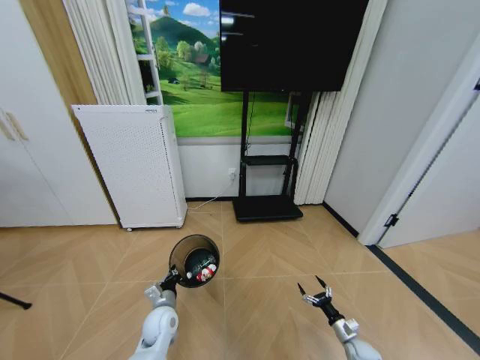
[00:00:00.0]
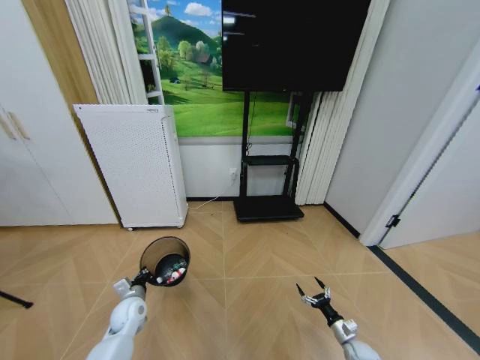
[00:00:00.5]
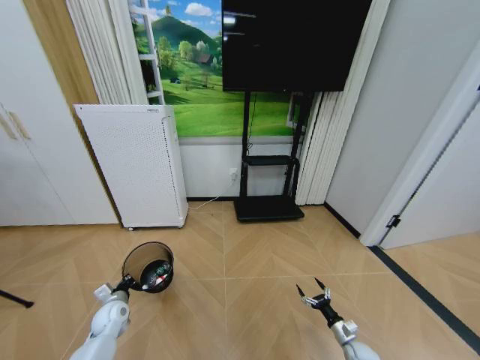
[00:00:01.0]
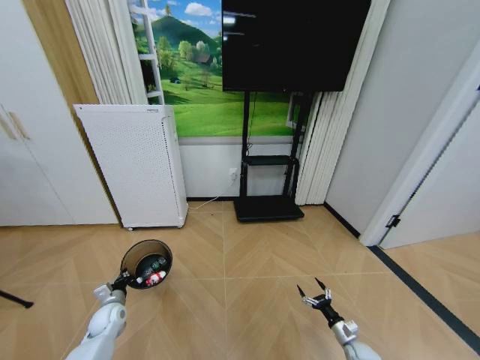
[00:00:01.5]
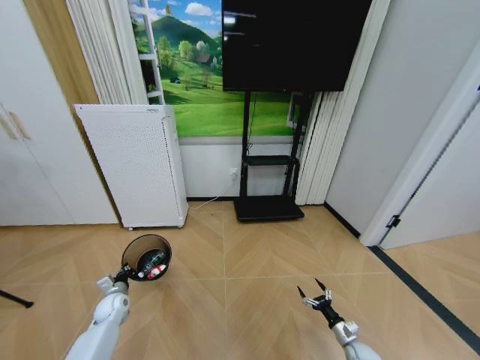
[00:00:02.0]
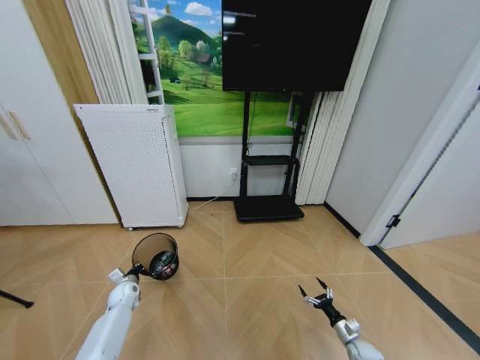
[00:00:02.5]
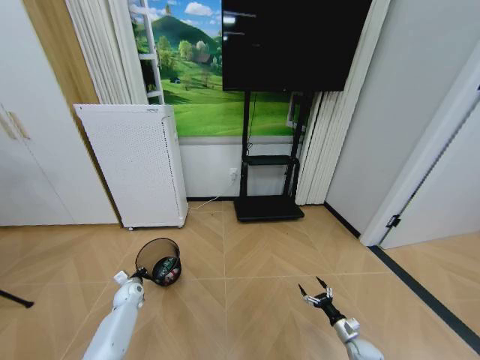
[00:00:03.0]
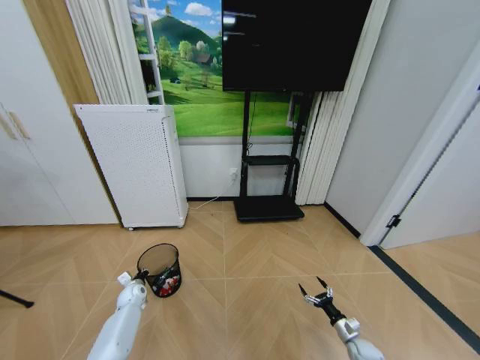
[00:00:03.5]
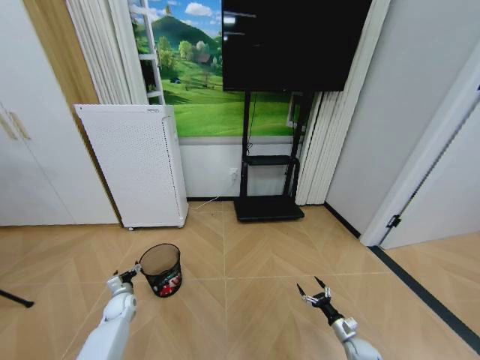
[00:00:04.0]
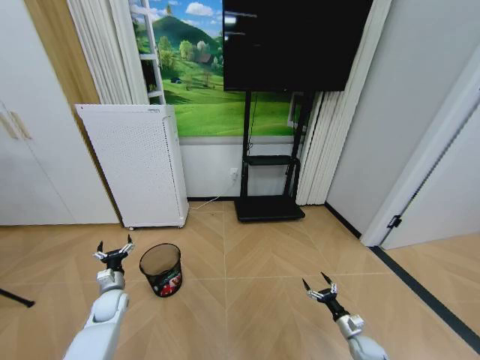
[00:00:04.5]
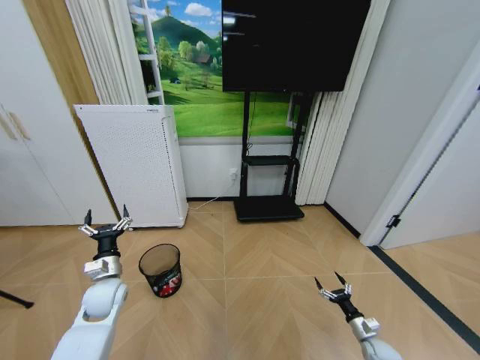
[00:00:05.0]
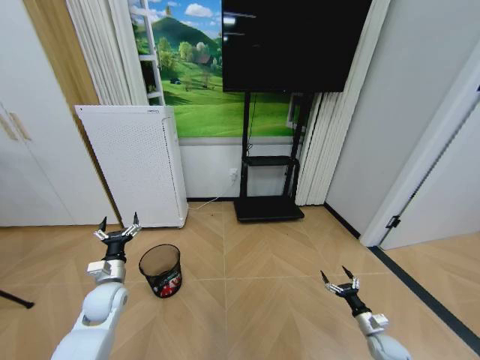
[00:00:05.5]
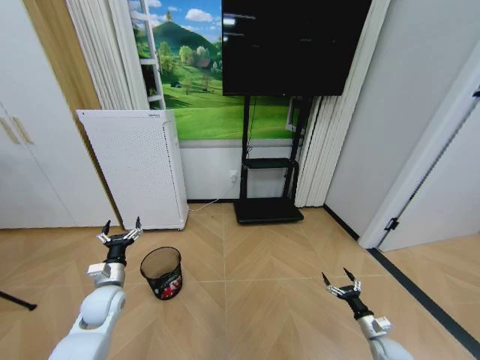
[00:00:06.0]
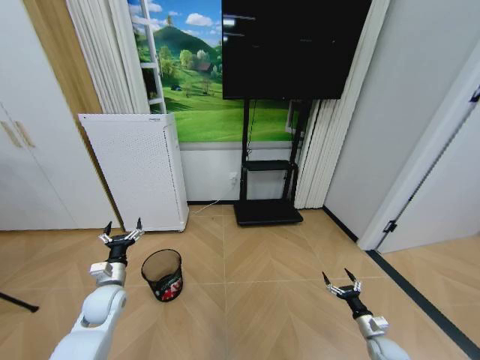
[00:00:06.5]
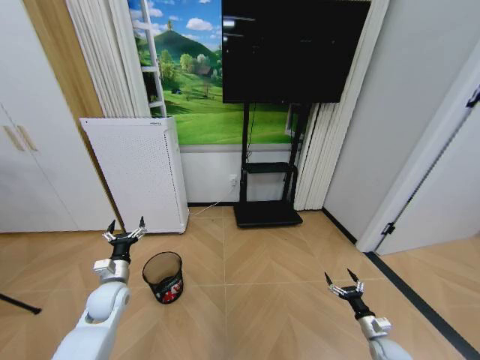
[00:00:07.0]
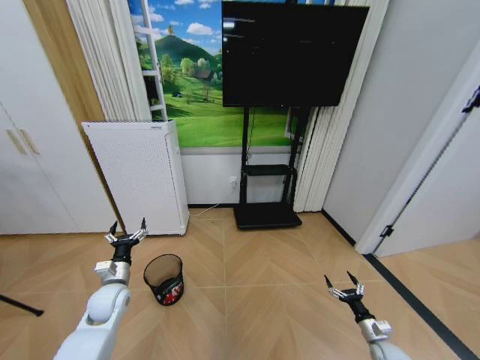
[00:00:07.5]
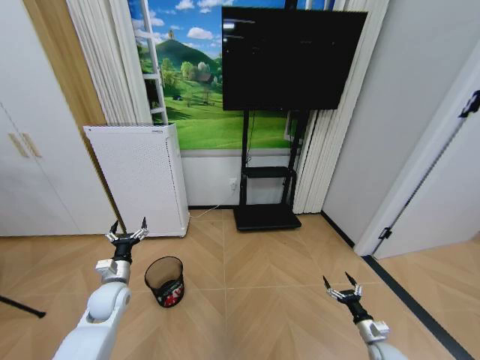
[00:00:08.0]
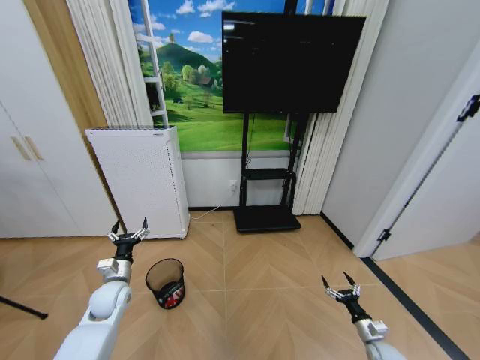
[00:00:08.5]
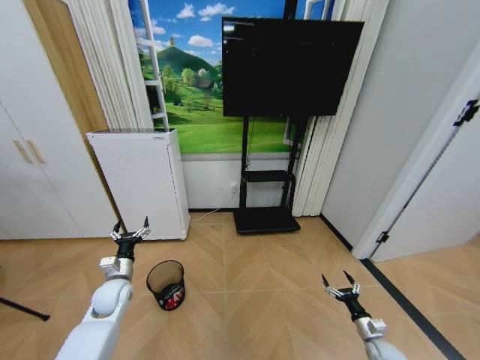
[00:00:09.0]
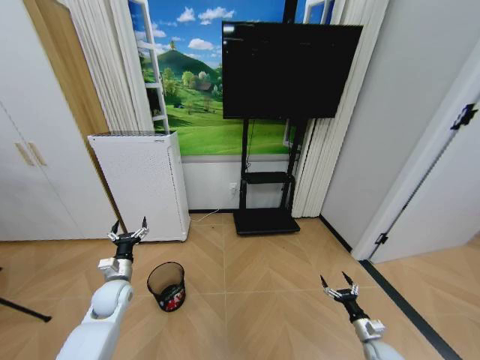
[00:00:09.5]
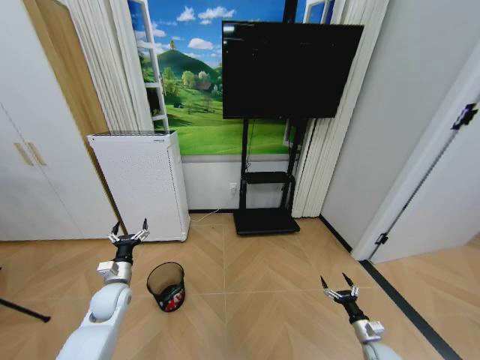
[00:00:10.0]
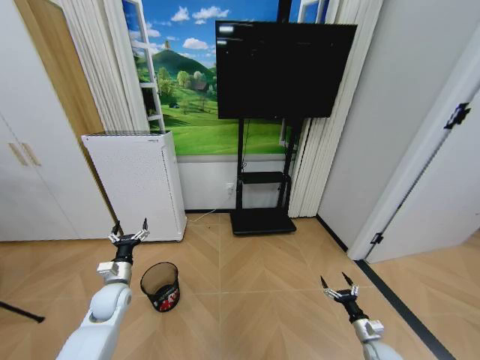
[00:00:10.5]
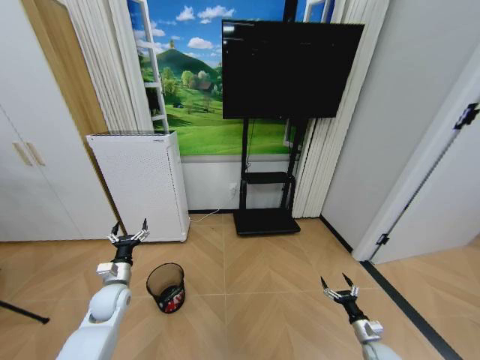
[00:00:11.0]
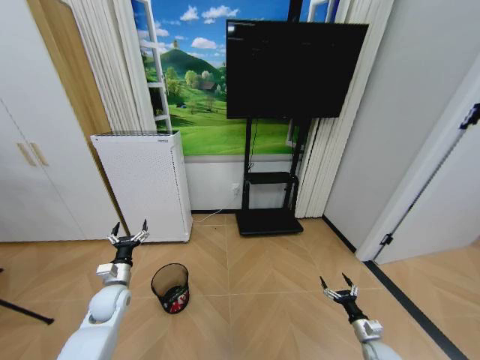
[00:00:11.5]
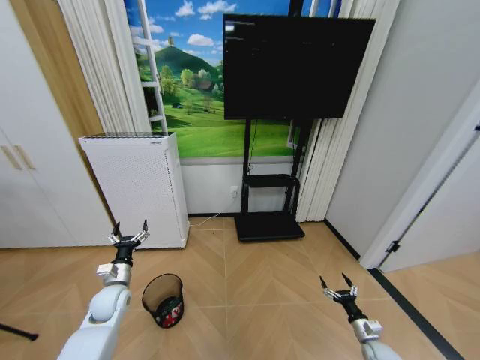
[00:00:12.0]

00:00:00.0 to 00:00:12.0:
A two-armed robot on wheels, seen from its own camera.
Task of the whole recording: Pick up the trash bin and place the garbage on the floor into it.
00:00:00.0 to 00:00:02.0: The left gripper travels to the left by roughly 20 cm.
00:00:02.0 to 00:00:04.0: The left gripper opens.
00:00:04.0 to 00:00:06.0: The right gripper goes about 10 cm upward and to the right. The left gripper moves upward, roughly 15 cm.
00:00:06.0 to 00:00:08.0: The grippers make only small movements.
00:00:08.0 to 00:00:10.0: Both grippers stay put.
00:00:10.0 to 00:00:12.0: Both grippers stay put.

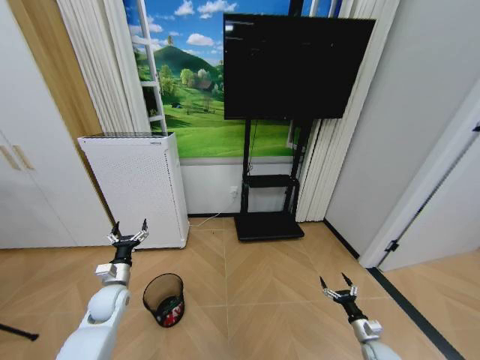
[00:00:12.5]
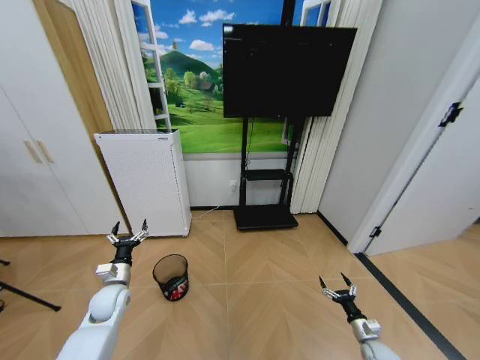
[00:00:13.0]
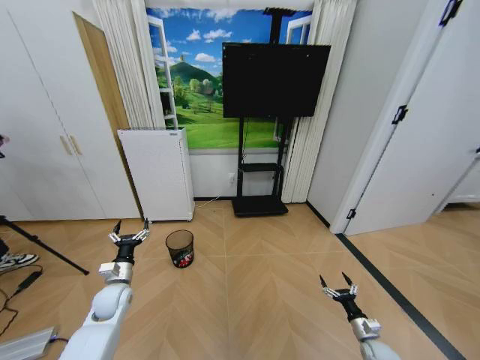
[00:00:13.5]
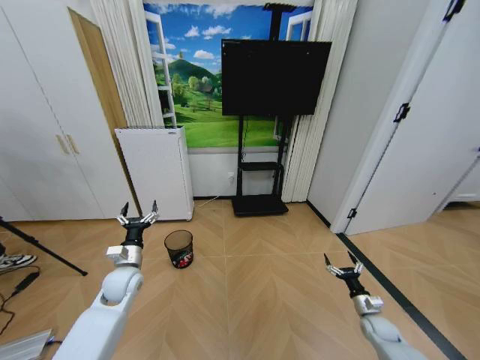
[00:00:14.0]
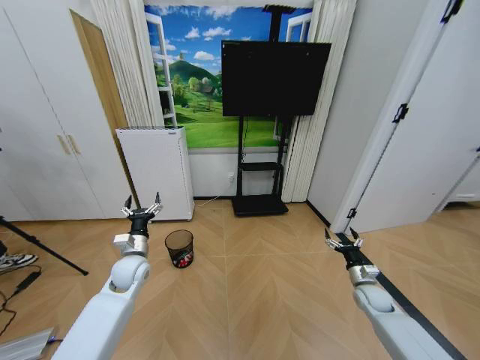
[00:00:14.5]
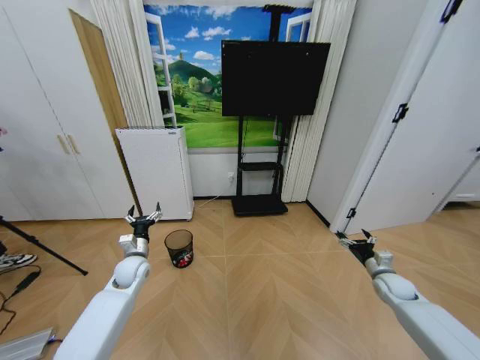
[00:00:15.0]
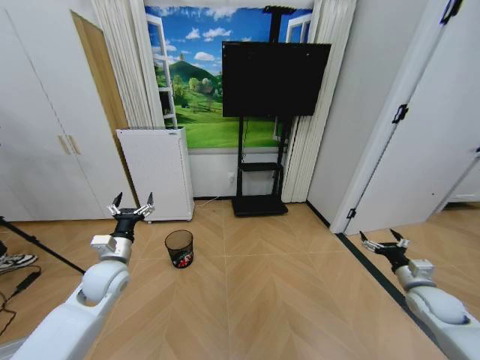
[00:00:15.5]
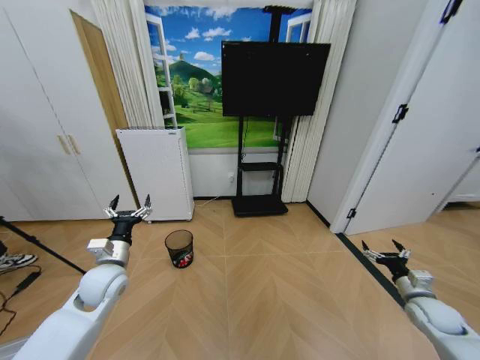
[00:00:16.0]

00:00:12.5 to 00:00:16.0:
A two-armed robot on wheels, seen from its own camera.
Task of the whole recording: Pick up the trash bin and place the garbage on the floor into it.
00:00:12.5 to 00:00:14.5: The left gripper heads upward and to the right, covering roughly 10 cm; the right gripper heads upward and forward, covering approximately 20 cm.
00:00:14.5 to 00:00:16.0: The right gripper goes approximately 15 cm to the right, backward and upward. Meanwhile the left gripper heads backward, covering about 5 cm.
